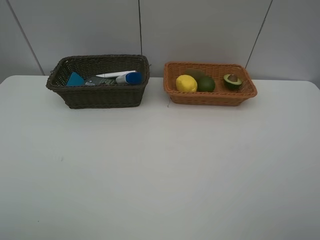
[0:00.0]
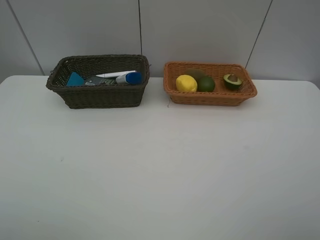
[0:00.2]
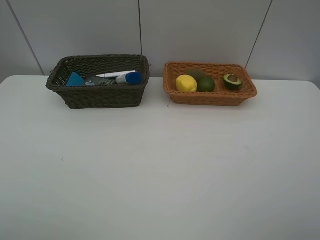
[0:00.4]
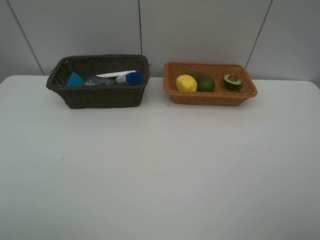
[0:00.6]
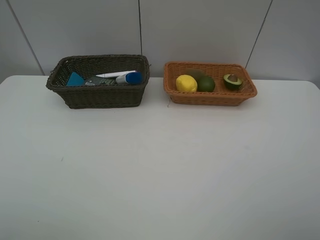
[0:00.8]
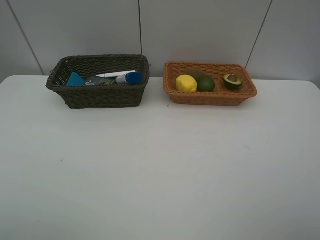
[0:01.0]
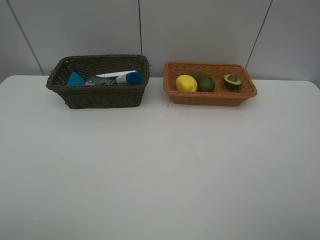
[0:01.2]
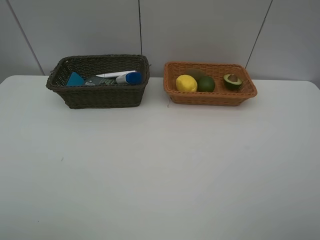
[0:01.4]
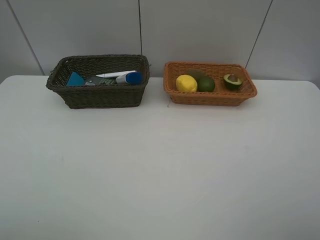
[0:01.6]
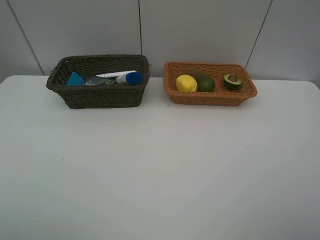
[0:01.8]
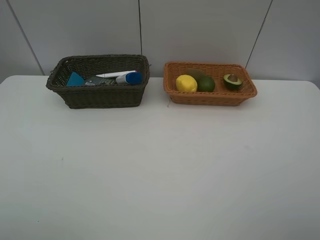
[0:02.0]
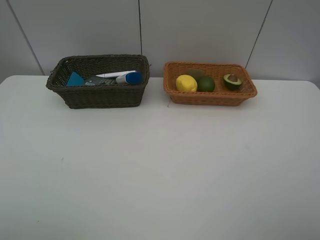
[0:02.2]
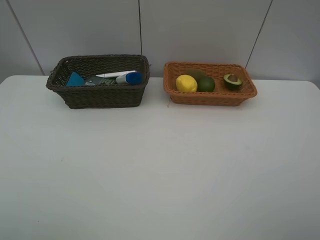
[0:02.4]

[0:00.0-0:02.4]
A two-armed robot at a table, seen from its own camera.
Task of the whole recording: Place multiple objects separately in different baskets.
0:01.2 to 0:02.4: Neither gripper changes place.

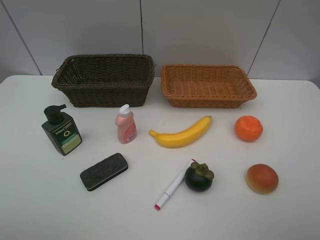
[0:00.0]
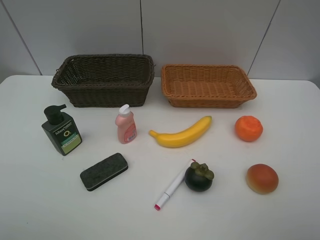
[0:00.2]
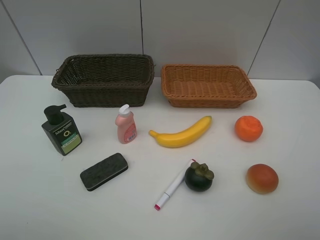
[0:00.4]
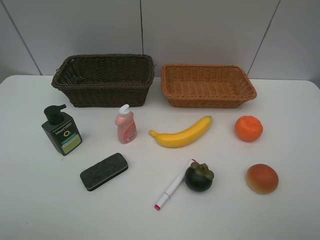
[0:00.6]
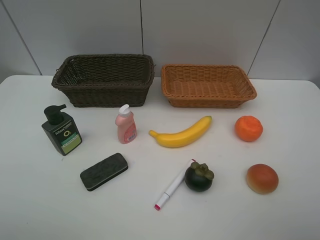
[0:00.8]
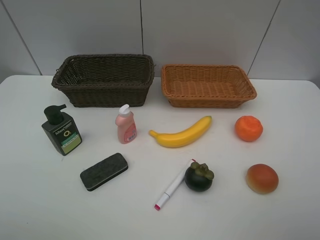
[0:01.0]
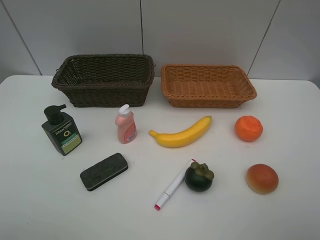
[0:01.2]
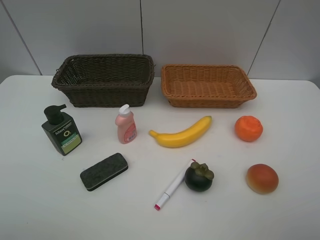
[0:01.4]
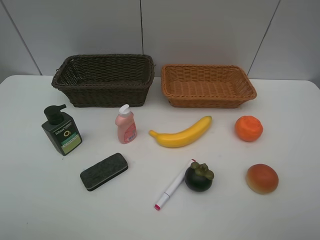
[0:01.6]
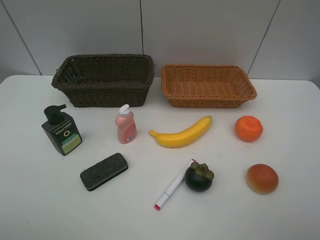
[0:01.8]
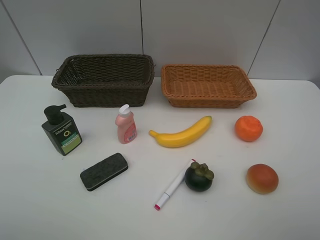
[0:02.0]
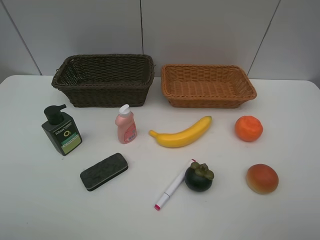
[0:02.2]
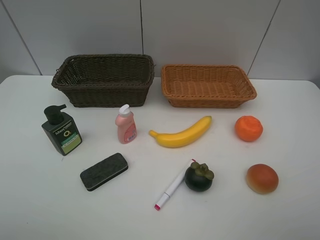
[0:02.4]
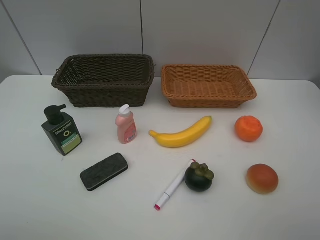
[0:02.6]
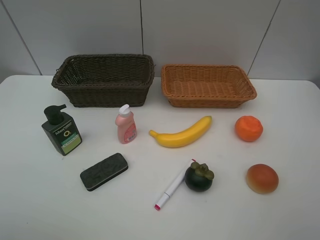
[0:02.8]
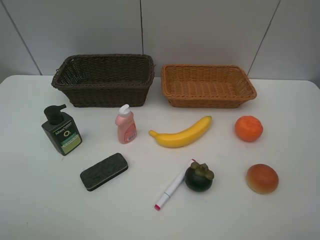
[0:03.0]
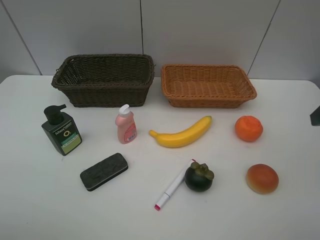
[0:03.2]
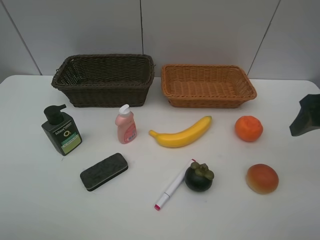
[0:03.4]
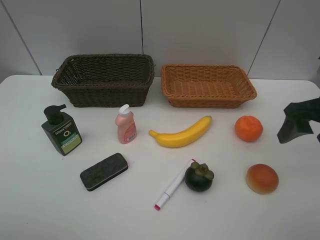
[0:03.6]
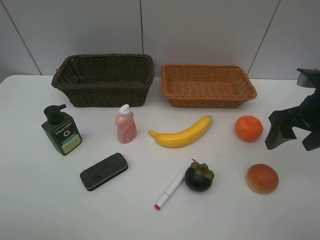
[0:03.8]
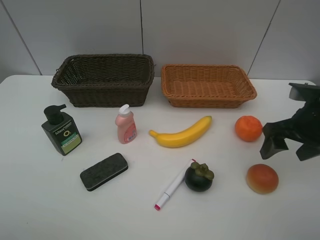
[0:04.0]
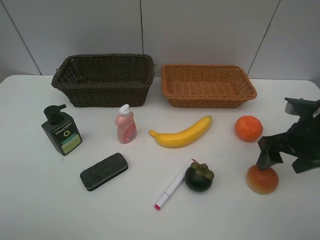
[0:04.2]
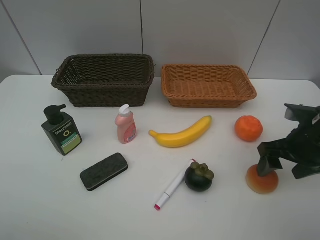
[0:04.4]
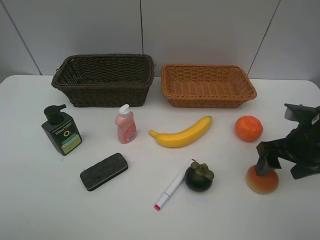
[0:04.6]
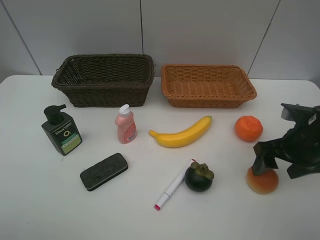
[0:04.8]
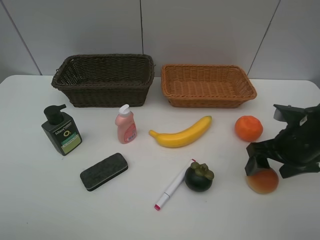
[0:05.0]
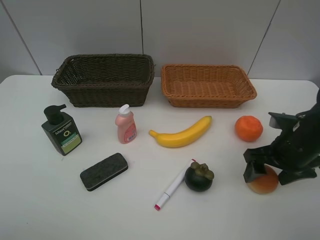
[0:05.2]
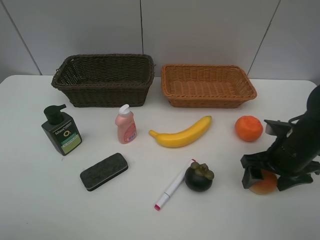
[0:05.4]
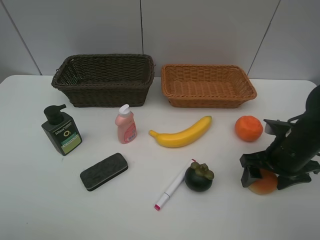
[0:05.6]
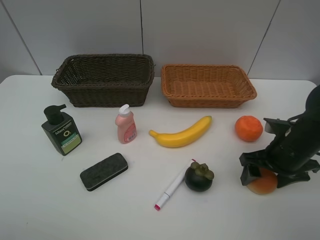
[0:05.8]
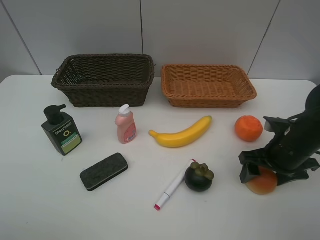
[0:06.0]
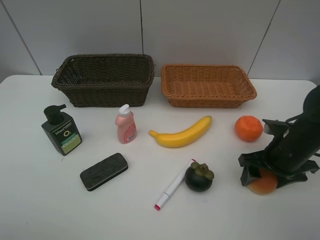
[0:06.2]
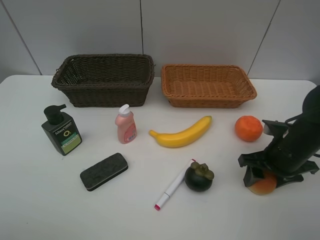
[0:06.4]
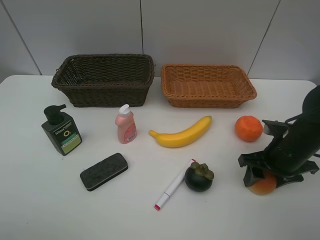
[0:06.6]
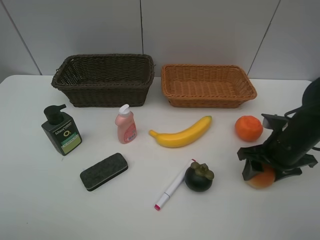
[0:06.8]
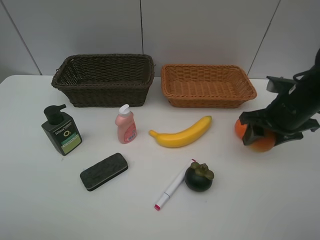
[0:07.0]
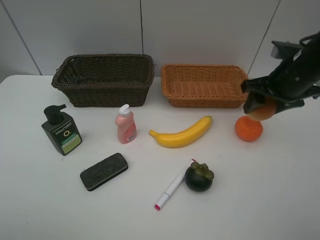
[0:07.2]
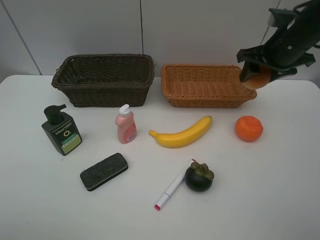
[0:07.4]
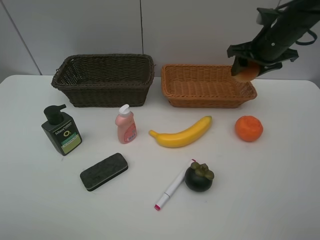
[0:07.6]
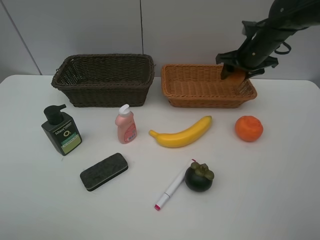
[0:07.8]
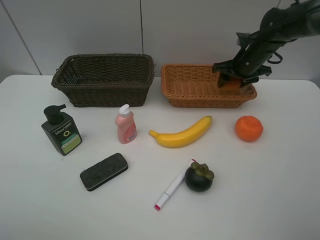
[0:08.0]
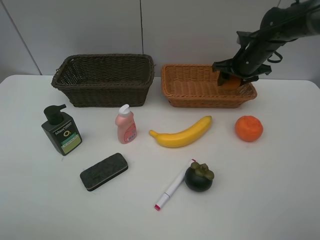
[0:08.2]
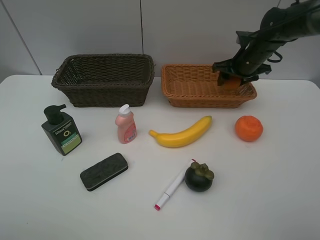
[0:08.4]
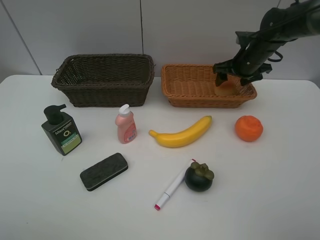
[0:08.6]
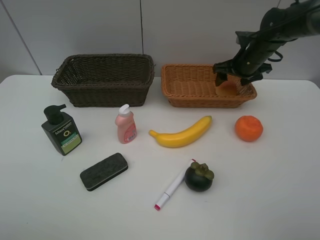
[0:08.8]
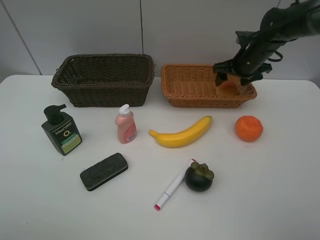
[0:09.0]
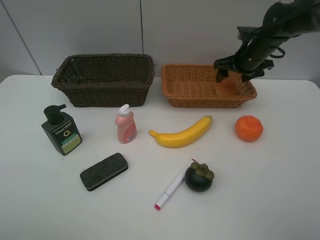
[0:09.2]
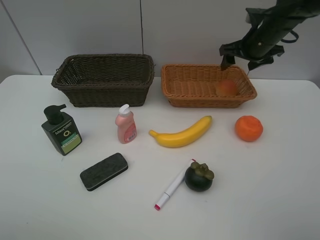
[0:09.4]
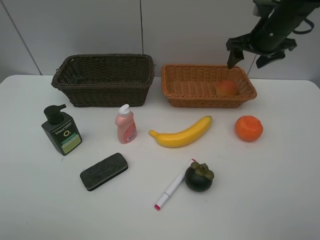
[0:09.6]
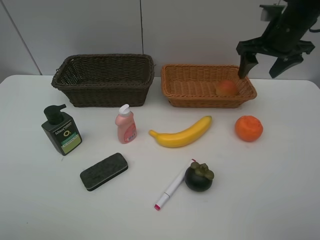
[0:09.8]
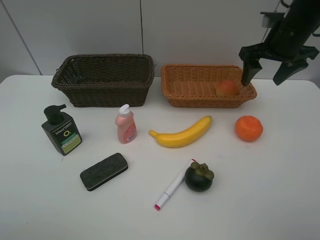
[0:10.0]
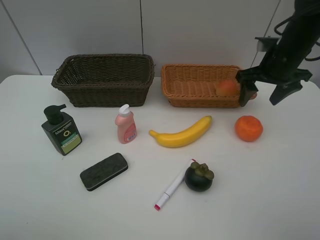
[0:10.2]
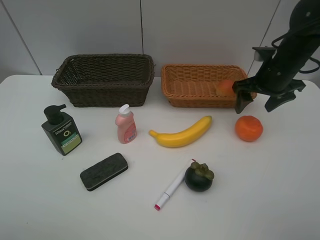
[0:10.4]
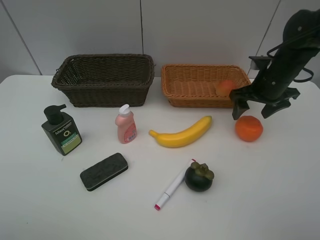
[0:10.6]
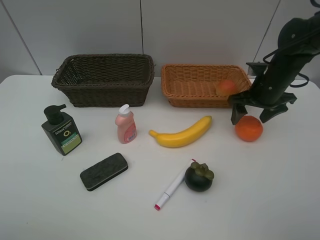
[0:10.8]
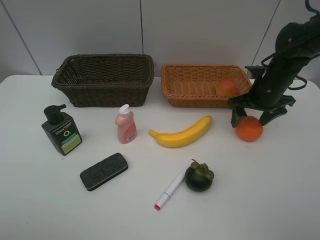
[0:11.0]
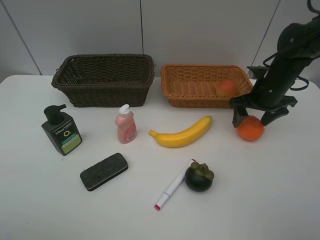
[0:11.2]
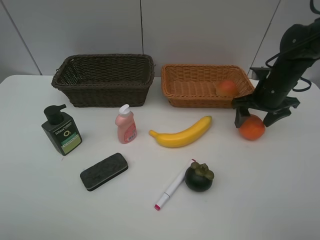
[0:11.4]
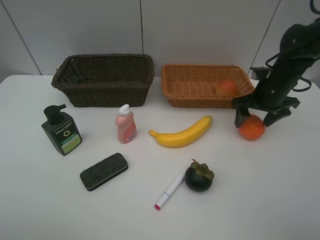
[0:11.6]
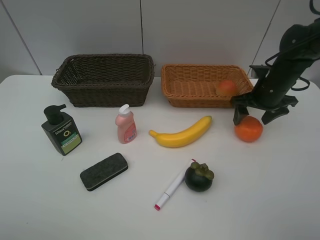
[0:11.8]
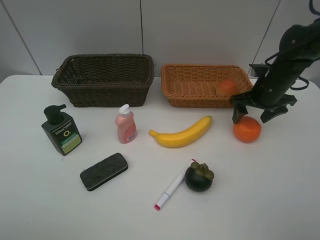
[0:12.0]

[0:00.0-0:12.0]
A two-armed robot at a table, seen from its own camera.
Task of the whole recording: Place multiple objects separately in different baskets.
Step, 0:00.0 to 0:06.8: Pick up egg yolk pastry with right gripper.
Step, 0:07.0 to 0:09.2: Place the egg yolk pastry in the light basket with right gripper.
0:00.0 to 0:01.6: Both grippers stay about where they are.
0:03.0 to 0:04.4: The right gripper goes about 15 cm downward and forward.
0:04.4 to 0:06.0: The grippers stay close to where they were, moving slightly.
0:06.0 to 0:07.6: The right gripper travels forward and upward by about 20 cm.
0:07.6 to 0:09.0: The right gripper travels downward and forward by roughly 10 cm.
0:09.0 to 0:10.4: The right gripper goes some 10 cm backward, and travels upward and back again, about 10 cm each way.
0:10.4 to 0:12.0: The right gripper moves about 5 cm.

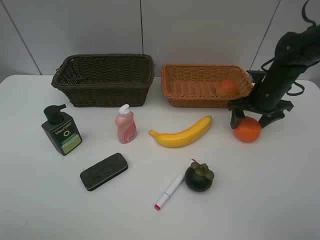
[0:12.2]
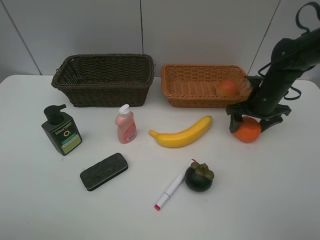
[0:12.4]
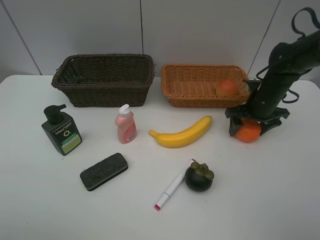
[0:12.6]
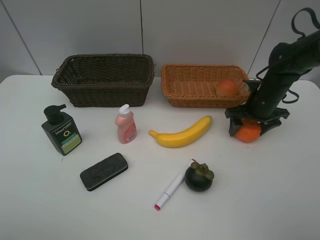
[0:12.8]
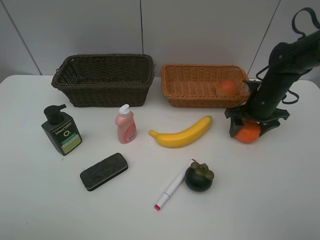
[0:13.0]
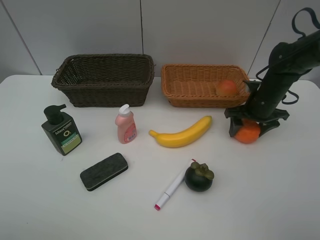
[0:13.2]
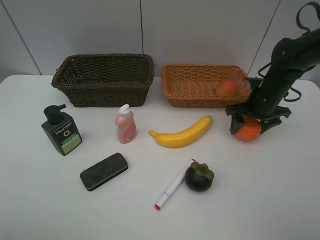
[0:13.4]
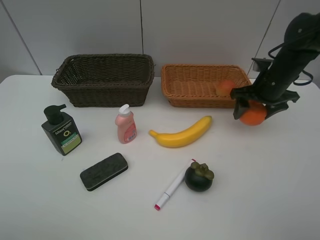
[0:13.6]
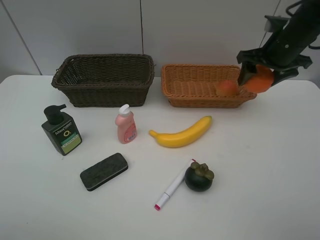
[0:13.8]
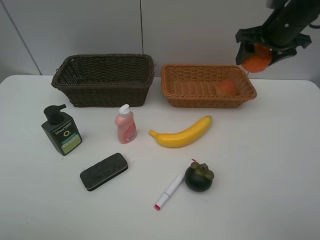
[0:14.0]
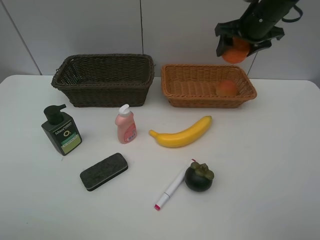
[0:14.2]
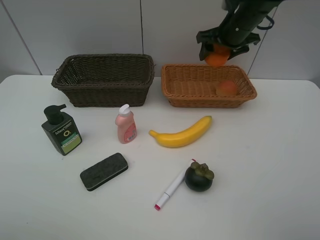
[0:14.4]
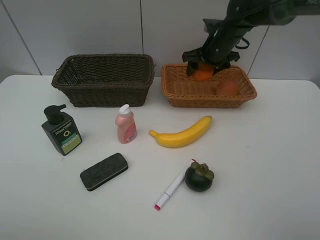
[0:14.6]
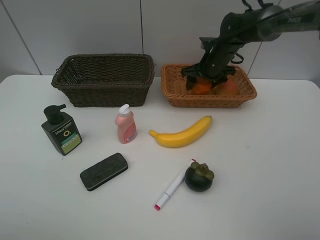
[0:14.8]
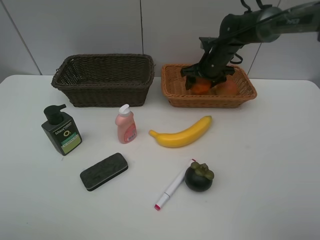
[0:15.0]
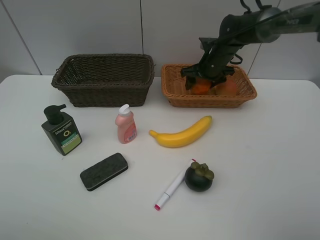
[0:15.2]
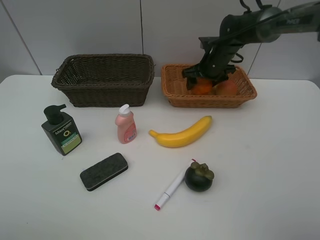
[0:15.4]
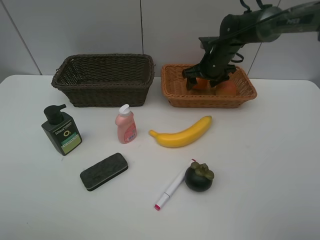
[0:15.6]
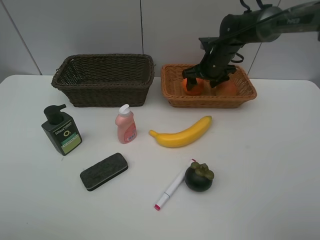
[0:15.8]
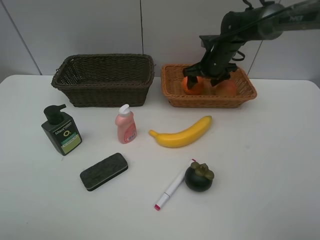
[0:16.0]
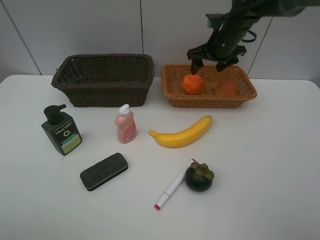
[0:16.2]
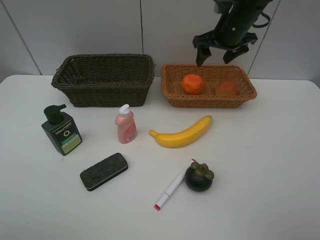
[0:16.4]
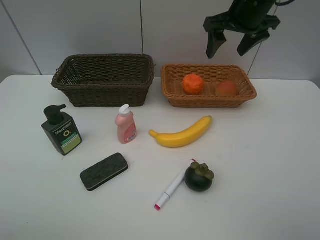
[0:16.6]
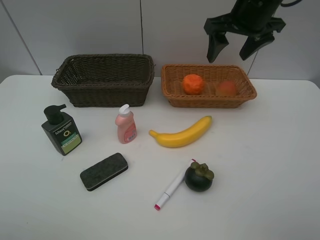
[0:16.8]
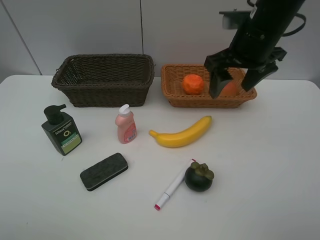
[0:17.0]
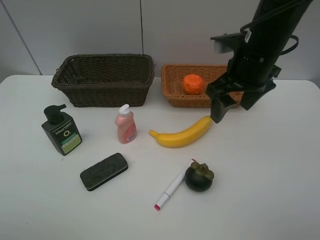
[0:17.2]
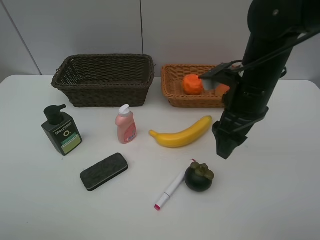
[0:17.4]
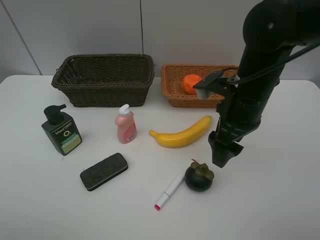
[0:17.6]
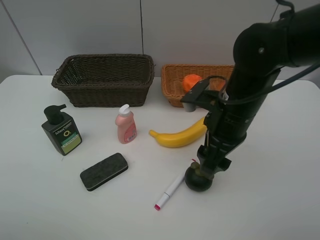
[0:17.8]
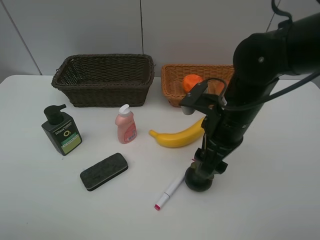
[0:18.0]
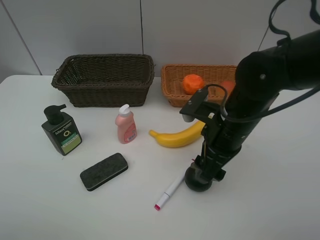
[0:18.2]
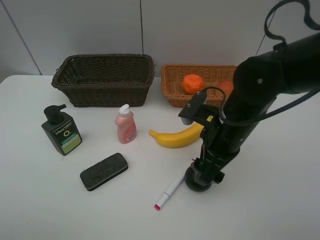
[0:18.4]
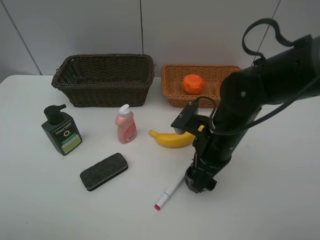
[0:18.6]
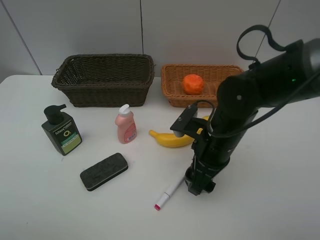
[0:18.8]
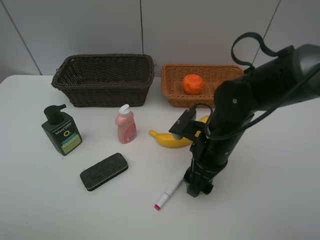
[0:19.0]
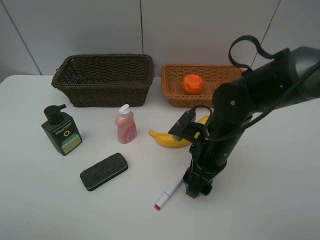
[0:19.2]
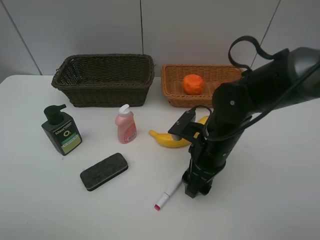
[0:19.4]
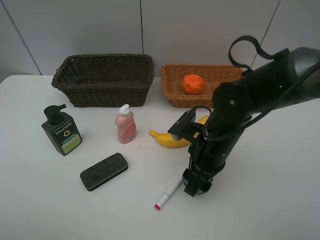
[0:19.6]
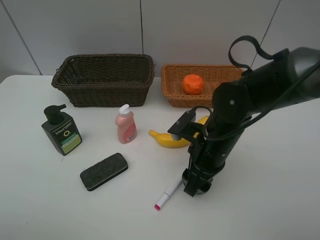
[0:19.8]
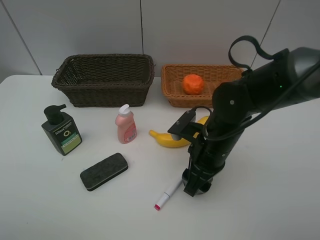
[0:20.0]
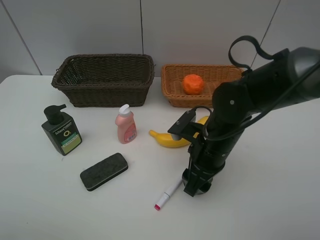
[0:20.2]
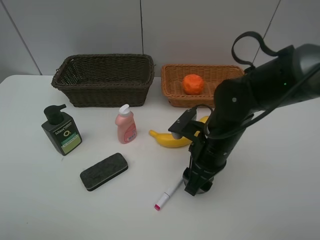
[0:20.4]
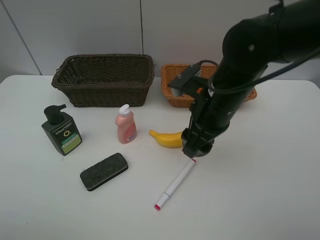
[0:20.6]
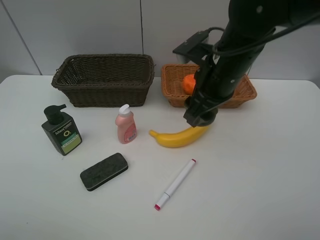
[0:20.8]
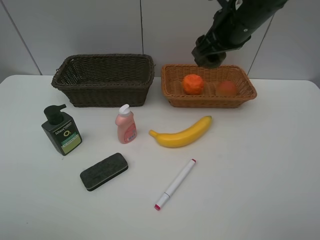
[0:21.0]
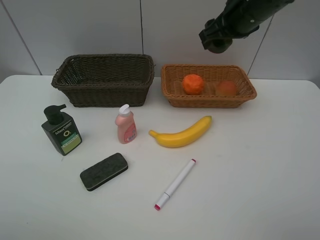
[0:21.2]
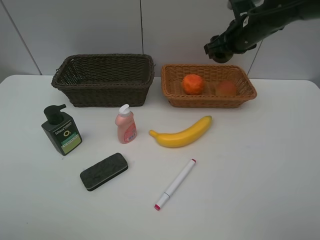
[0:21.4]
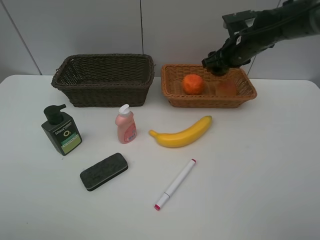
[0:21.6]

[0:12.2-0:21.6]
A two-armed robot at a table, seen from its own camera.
Task of the whole recording: Place multiple objects separately in different baskets.
Step, 0:13.6 to 0:16.0: Place the orange in the light basket with right gripper.
Step, 0:16.2 to 0:20.4: Pick up the mangosteen with right gripper.
0:12.2 to 0:13.8: The right gripper is displaced upward by about 10 cm.
0:13.8 to 0:15.4: The right gripper travels downward, to the left and forward by approximately 20 cm.
0:15.4 to 0:17.0: The right gripper shifts roughly 20 cm backward and upward.
0:17.0 to 0:18.4: The right gripper shifts about 15 cm downward and backward.
0:18.4 to 0:20.0: The grippers make only small movements.
0:20.0 to 0:21.6: The right gripper shifts roughly 25 cm forward and to the right.
